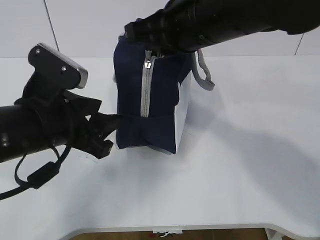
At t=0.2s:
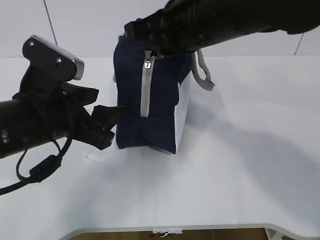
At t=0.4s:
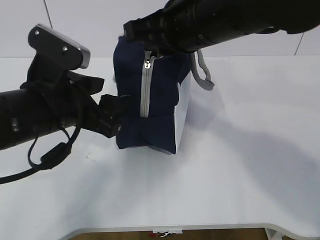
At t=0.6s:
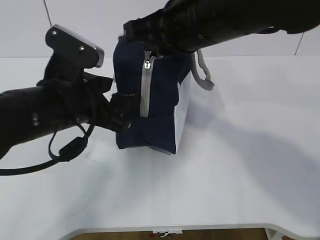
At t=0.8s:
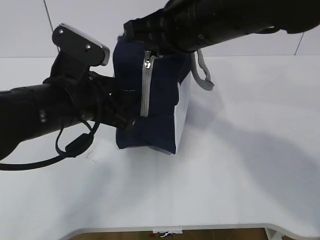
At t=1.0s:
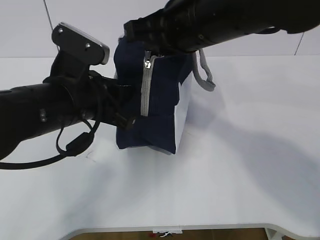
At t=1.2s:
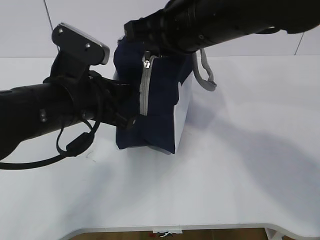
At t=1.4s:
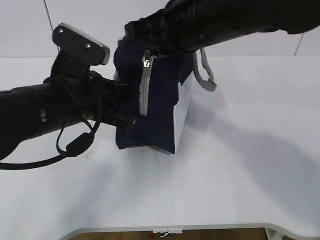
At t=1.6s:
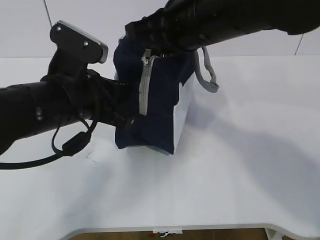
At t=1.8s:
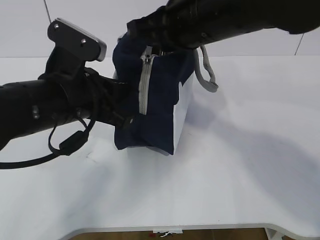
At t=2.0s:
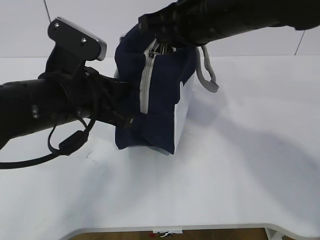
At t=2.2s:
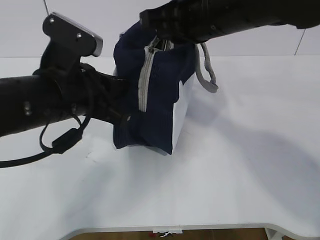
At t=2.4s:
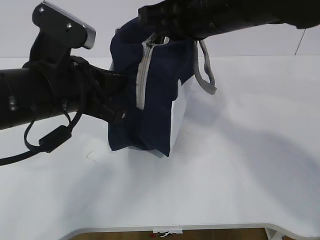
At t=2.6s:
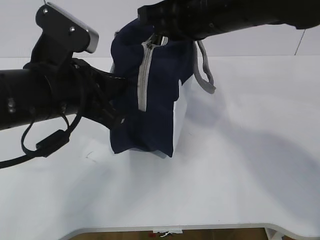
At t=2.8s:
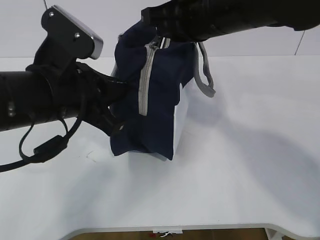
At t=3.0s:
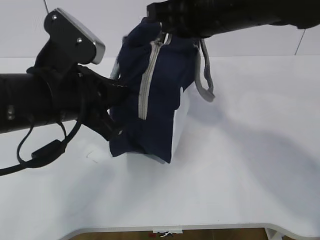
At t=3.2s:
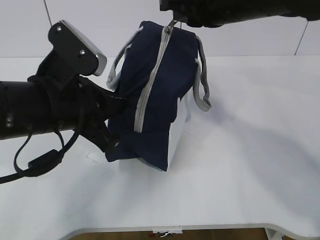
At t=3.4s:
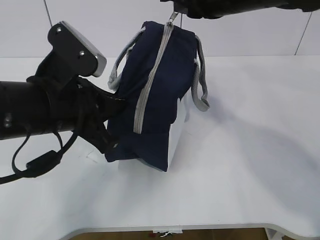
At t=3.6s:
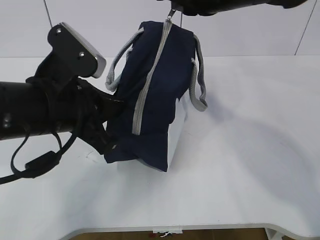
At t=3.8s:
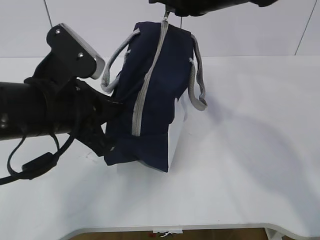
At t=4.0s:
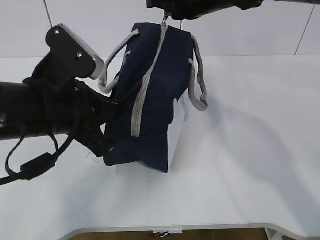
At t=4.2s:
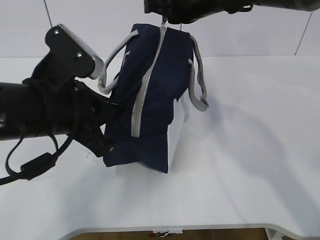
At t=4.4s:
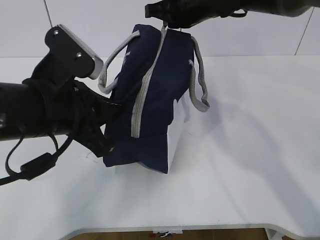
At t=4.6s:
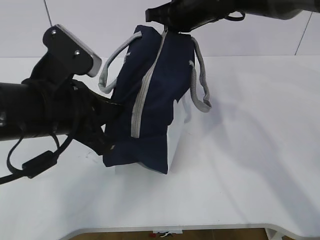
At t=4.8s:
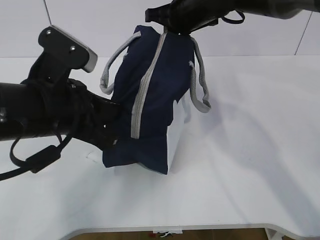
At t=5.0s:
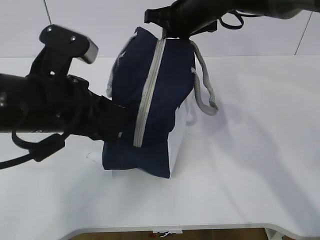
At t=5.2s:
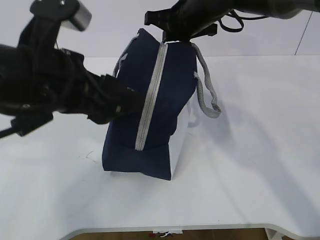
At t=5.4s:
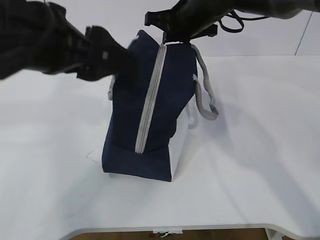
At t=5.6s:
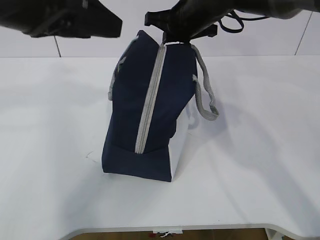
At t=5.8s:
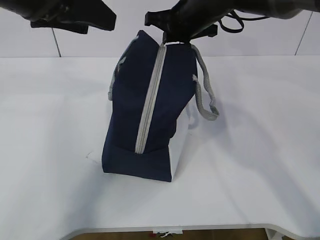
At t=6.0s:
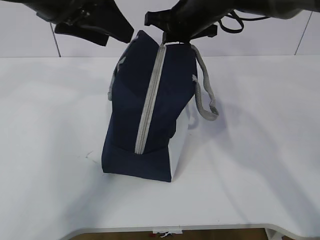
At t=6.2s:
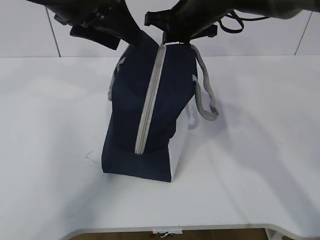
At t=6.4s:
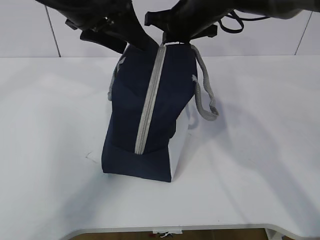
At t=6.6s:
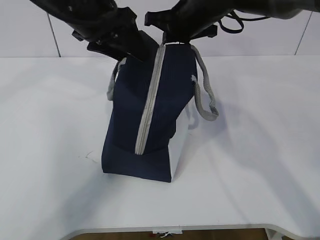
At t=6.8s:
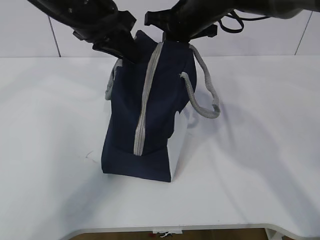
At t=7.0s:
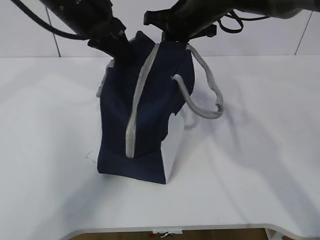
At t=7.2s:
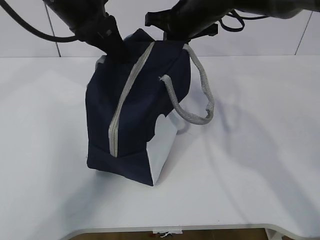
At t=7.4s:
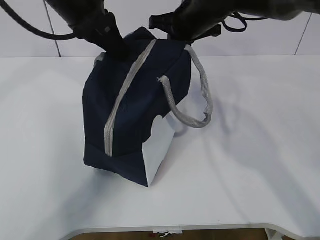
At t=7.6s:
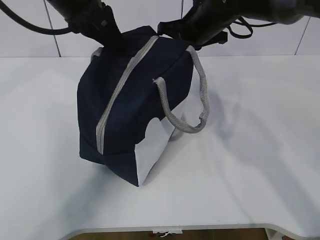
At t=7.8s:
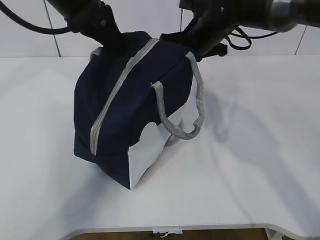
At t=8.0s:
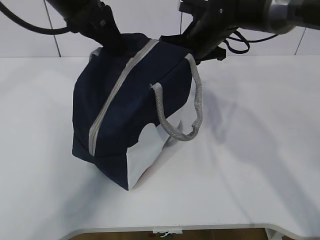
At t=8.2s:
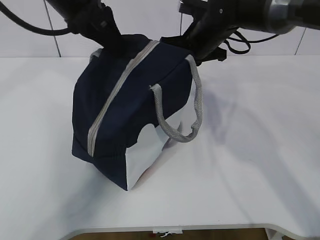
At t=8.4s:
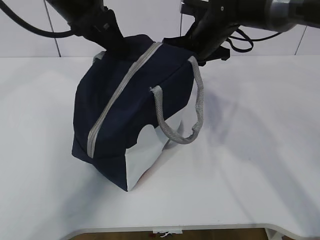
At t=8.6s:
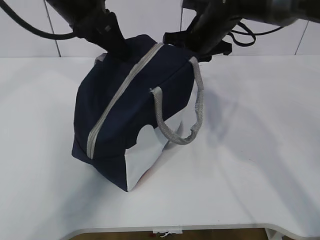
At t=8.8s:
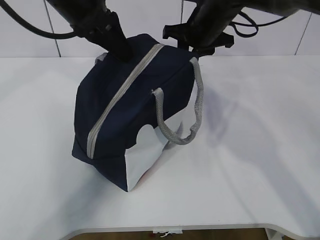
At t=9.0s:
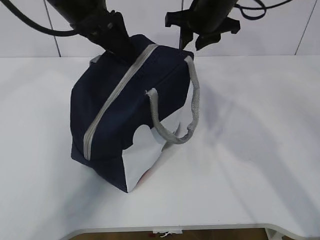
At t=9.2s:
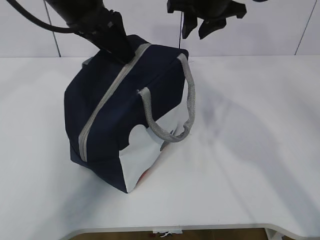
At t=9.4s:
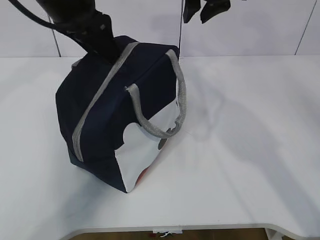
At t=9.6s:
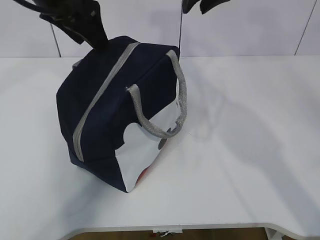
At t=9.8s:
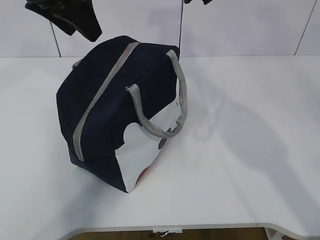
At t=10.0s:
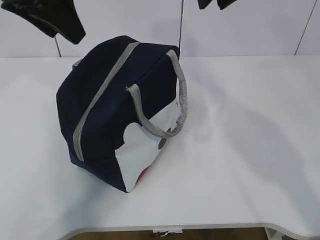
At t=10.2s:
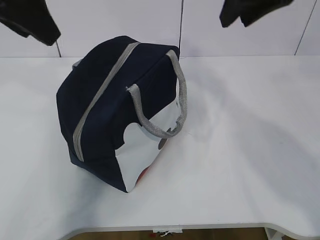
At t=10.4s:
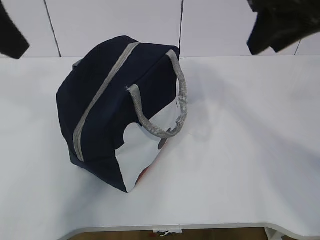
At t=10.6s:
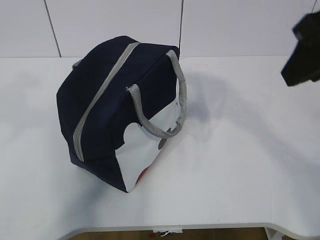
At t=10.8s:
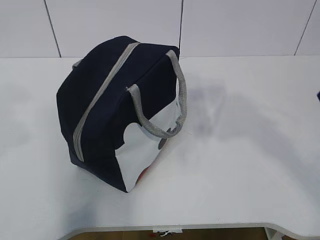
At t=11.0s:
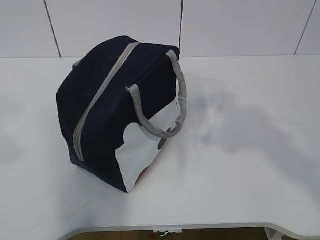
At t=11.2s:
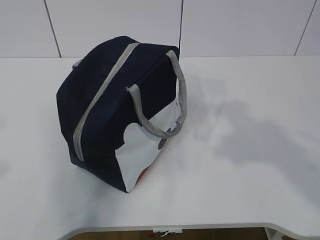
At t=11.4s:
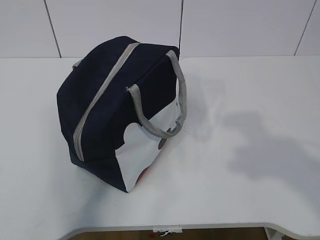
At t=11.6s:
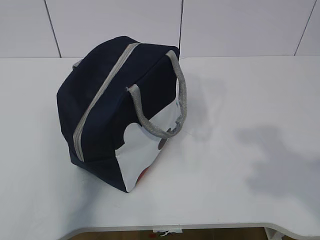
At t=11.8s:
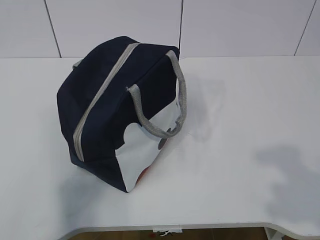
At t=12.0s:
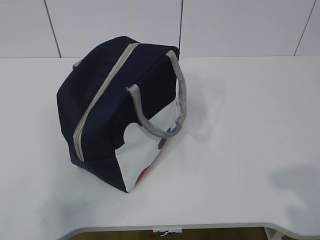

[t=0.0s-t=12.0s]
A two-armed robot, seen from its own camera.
t=0.0s to t=1.6s: The left gripper closes up.
t=1.6s to t=3.0s: The grippers move only a little.
t=3.0s to t=4.4s: The right gripper goes approximately 15 cm forward.
t=4.4s to t=6.0s: The left gripper is displaced upward and forward by about 15 cm, and opens.
t=6.0s to t=7.6s: The left gripper closes its fingers.
t=7.6s to t=9.0s: The left gripper opens its fingers. Meanwhile the right gripper opens its fingers.
t=9.0s to t=10.4s: The left gripper shifts roughly 15 cm backward, to the left and upward; the right gripper travels backward and upward by about 20 cm.
t=10.4s to t=12.0s: The left gripper goes roughly 30 cm backward, downward and to the left; the right gripper travels backward by about 30 cm.

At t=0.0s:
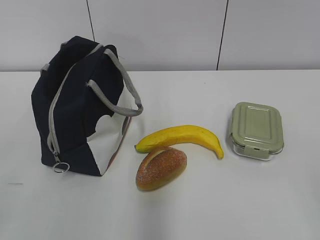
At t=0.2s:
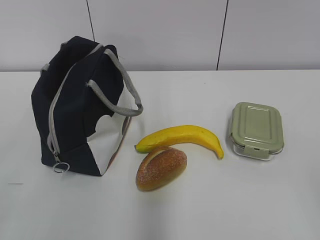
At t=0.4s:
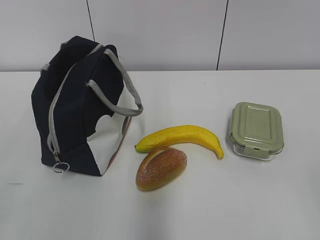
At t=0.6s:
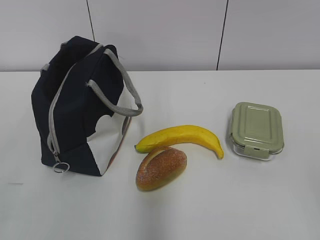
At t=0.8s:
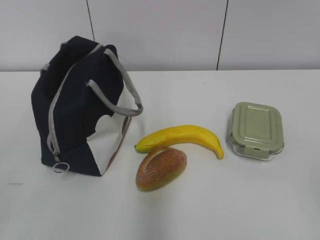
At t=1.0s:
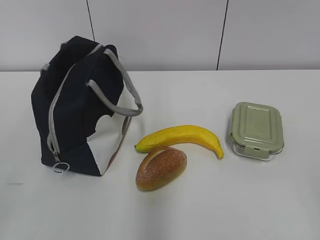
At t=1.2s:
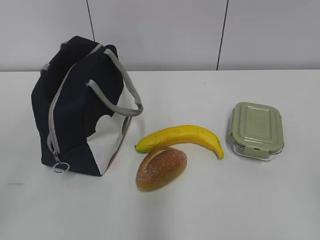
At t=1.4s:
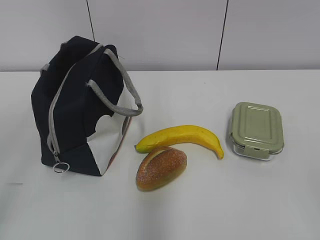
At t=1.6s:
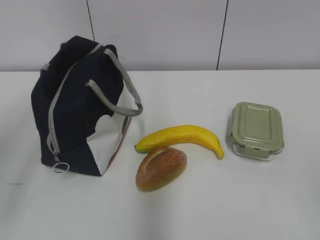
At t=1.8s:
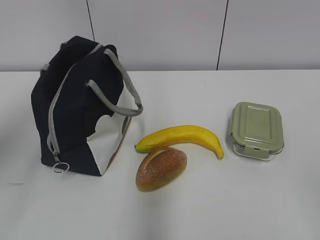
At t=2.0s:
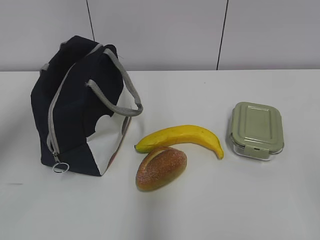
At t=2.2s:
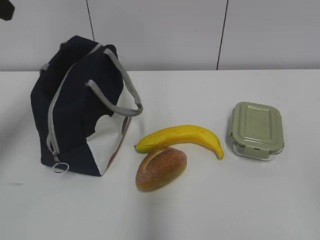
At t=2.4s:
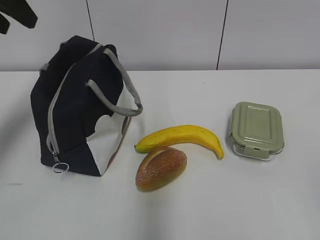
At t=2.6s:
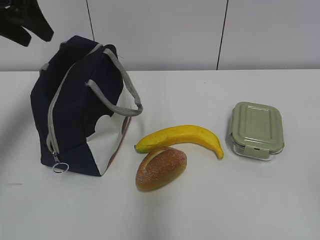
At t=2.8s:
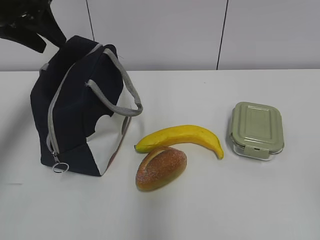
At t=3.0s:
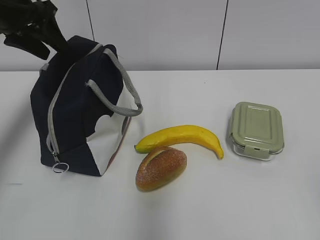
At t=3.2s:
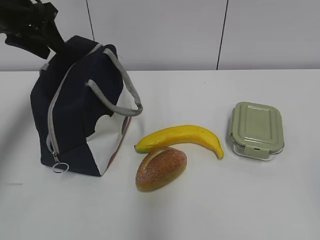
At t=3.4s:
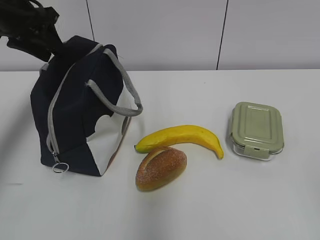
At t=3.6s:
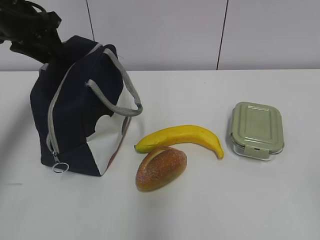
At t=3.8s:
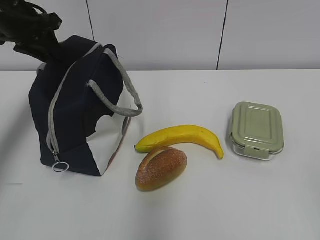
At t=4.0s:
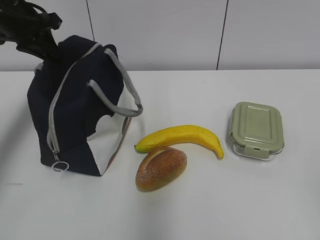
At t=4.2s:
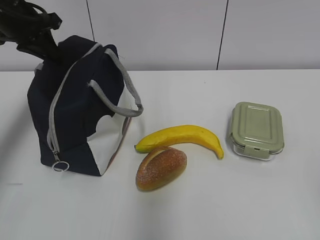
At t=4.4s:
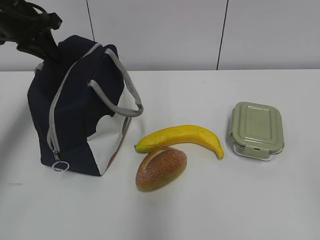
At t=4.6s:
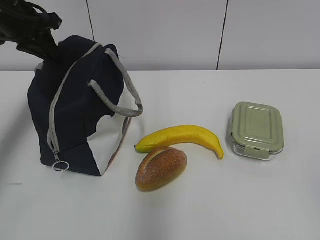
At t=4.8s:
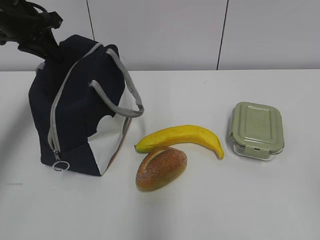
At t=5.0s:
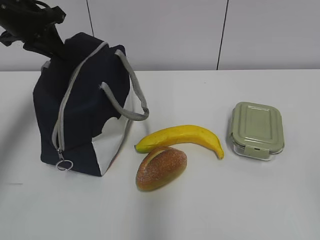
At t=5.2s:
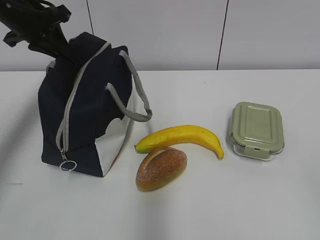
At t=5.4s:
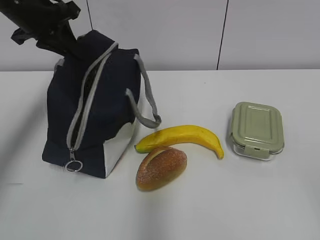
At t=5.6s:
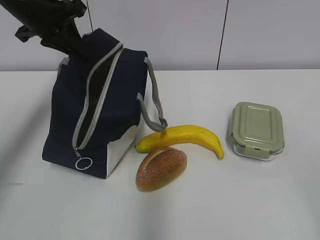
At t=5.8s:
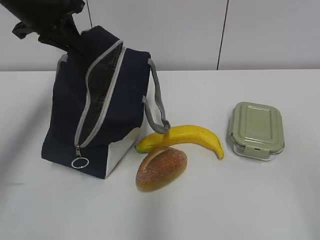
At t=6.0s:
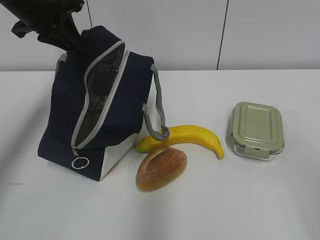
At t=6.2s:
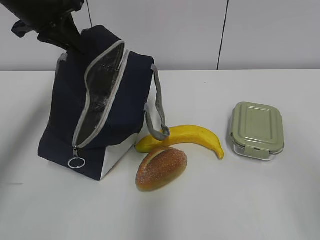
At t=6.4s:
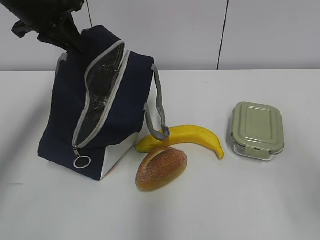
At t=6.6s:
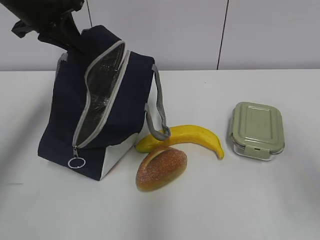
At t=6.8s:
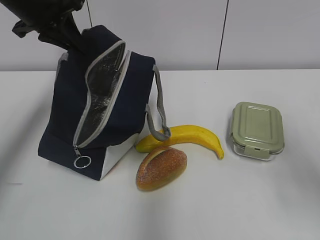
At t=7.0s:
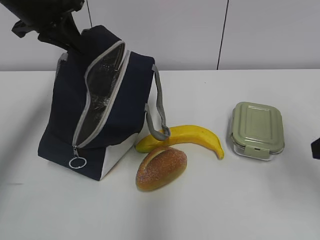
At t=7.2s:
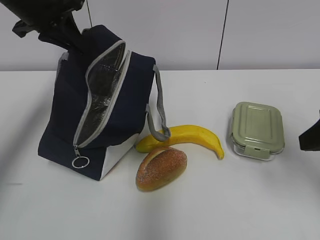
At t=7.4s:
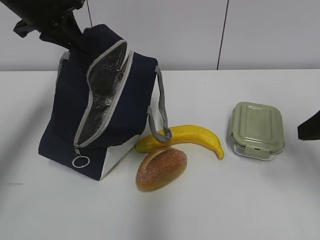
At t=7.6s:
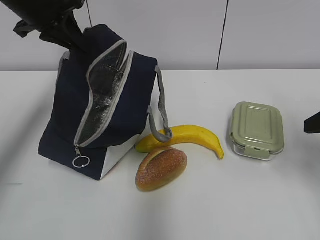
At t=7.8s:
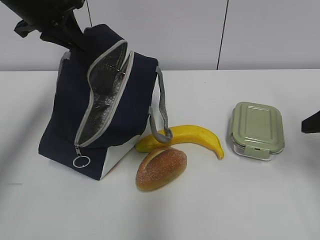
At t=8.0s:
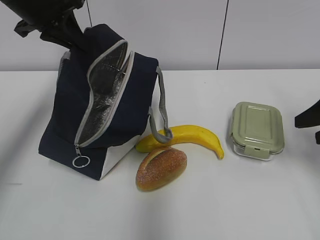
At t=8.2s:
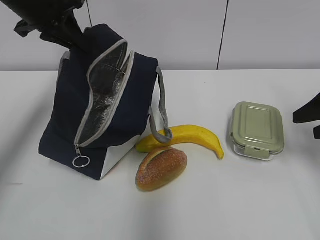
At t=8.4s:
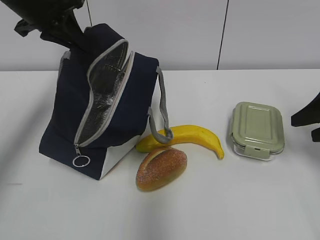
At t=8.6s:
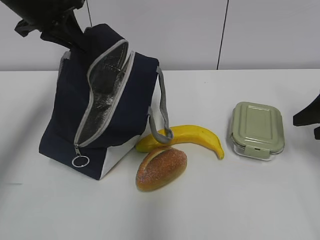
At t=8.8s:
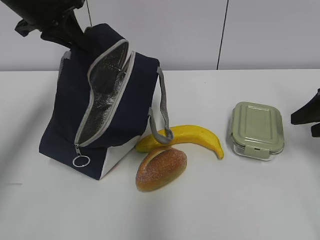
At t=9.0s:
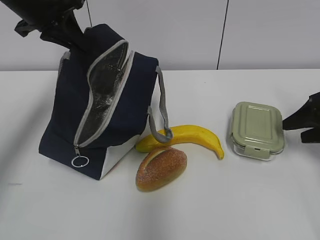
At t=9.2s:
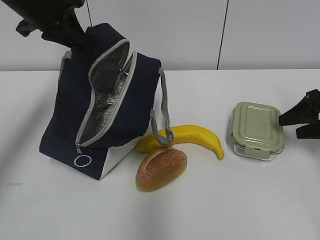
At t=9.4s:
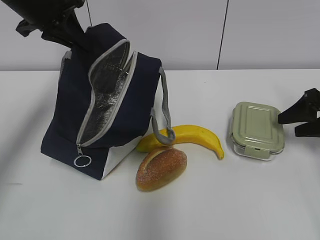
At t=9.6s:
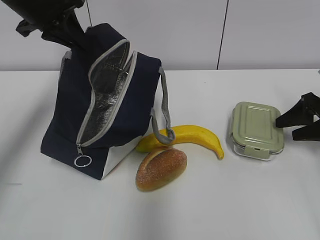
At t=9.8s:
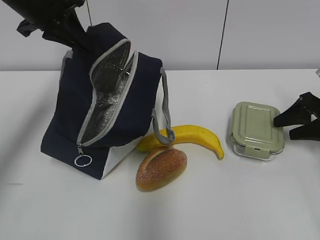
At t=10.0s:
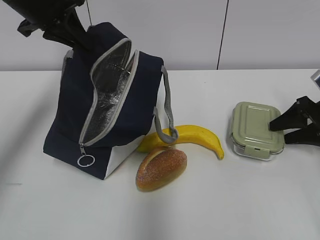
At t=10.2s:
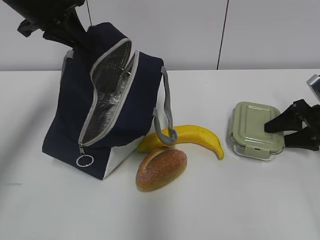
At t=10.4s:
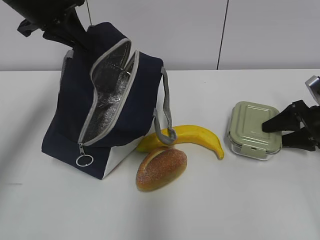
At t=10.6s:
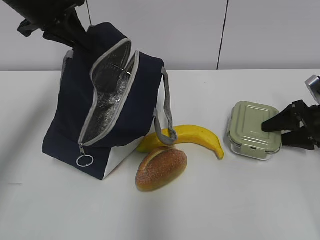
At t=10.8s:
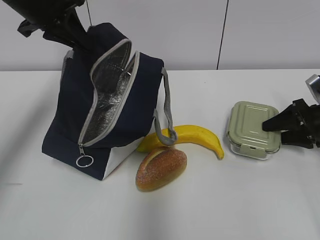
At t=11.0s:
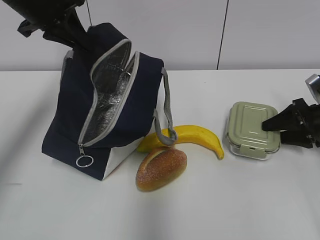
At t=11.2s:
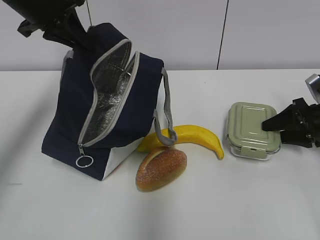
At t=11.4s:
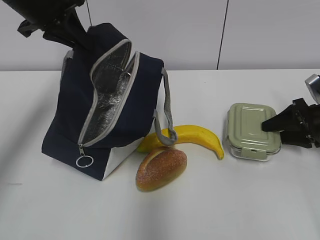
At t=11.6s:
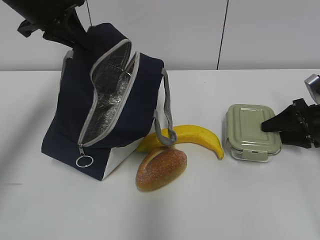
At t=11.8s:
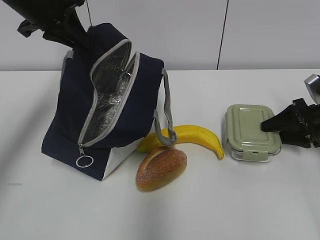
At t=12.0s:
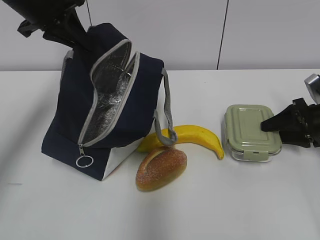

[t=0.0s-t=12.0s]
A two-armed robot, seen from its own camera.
t=1.6s to t=3.0s: The left gripper goes some 30 cm forward.
t=3.0s to t=4.4s: The left gripper closes up.
t=4.4s to t=6.0s: The left gripper changes place by some 5 cm. The right gripper shifts some 5 cm forward.
t=6.0s to t=7.6s: The right gripper goes some 20 cm forward.
t=7.6s to t=9.0s: The right gripper travels forward and downward by some 10 cm.
t=9.0s to t=10.4s: The right gripper is displaced downward by approximately 5 cm.
t=10.4s to t=12.0s: Neither gripper changes place.
